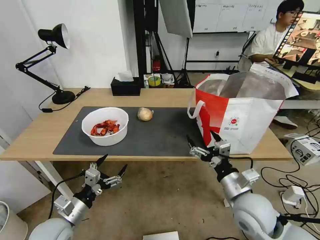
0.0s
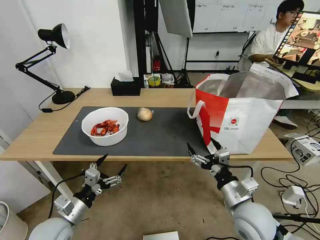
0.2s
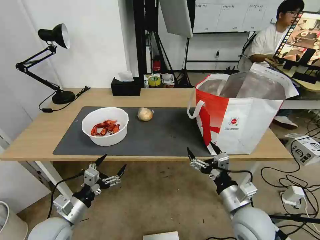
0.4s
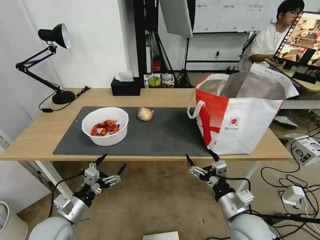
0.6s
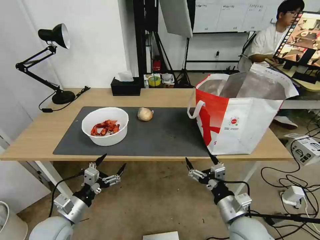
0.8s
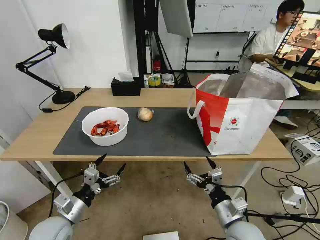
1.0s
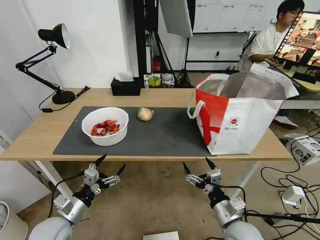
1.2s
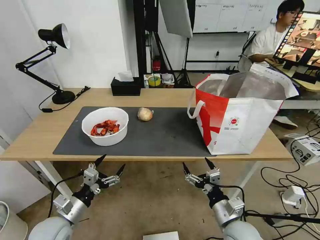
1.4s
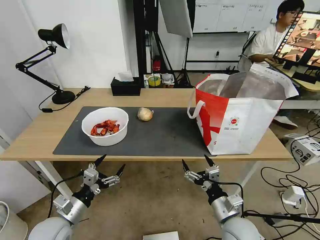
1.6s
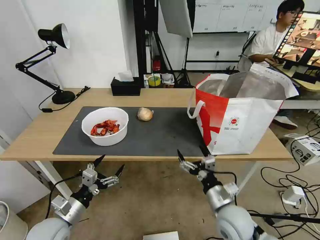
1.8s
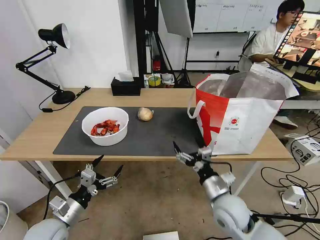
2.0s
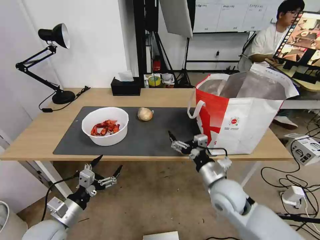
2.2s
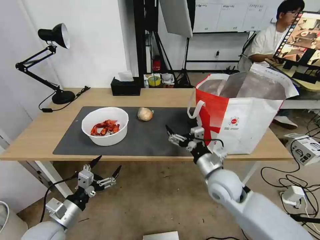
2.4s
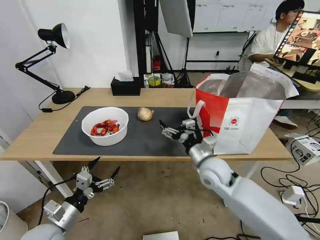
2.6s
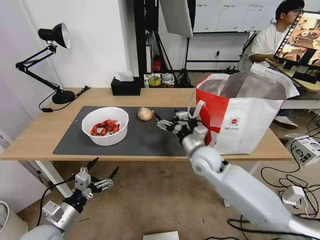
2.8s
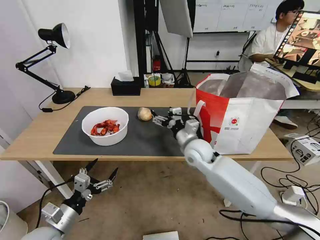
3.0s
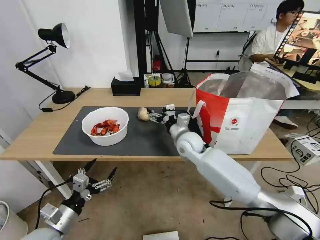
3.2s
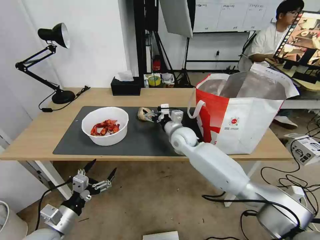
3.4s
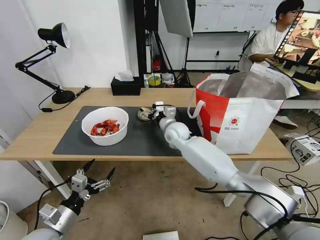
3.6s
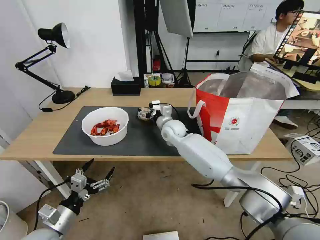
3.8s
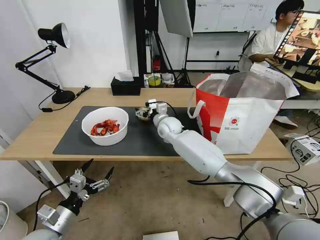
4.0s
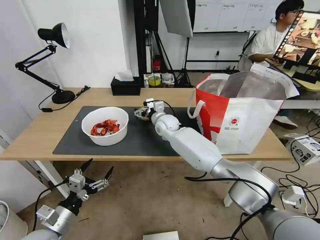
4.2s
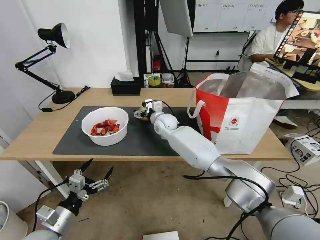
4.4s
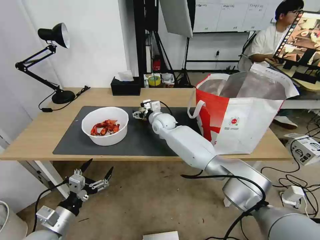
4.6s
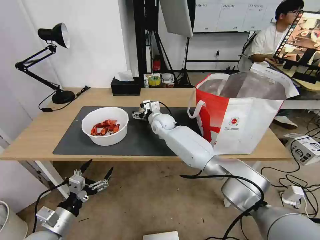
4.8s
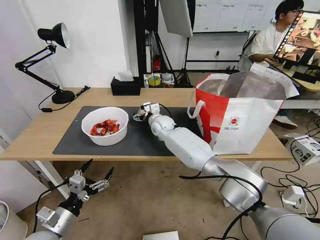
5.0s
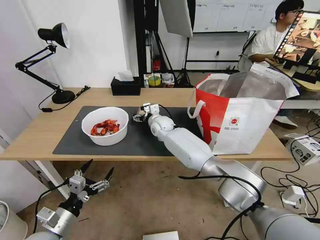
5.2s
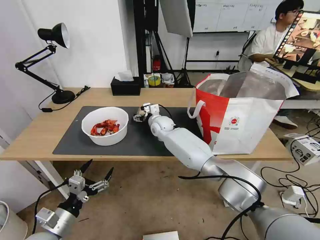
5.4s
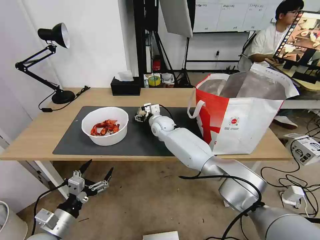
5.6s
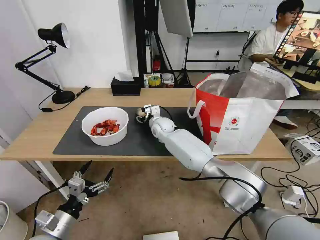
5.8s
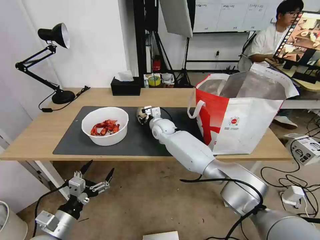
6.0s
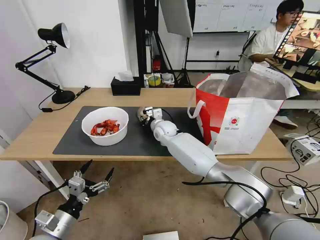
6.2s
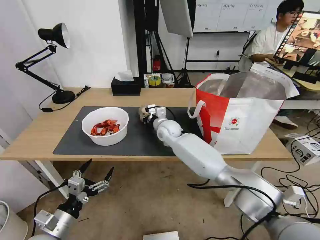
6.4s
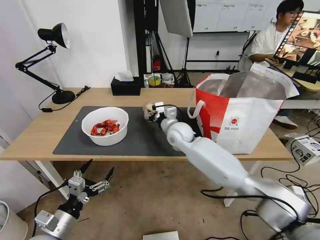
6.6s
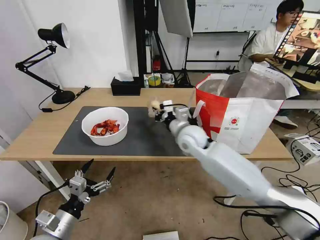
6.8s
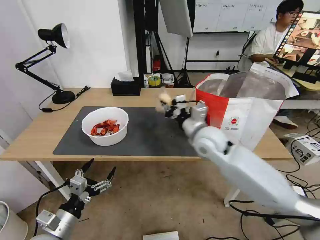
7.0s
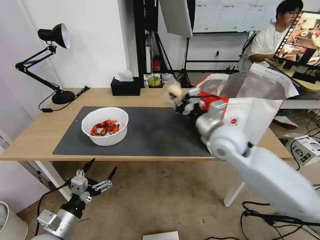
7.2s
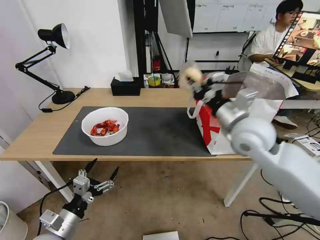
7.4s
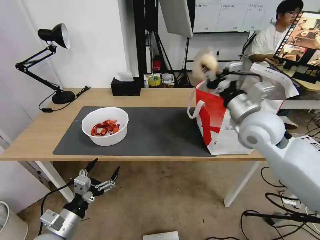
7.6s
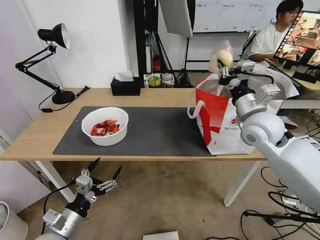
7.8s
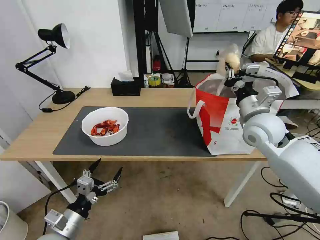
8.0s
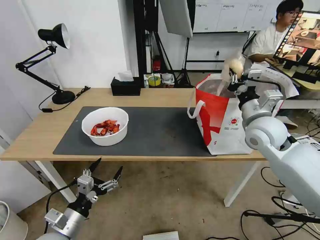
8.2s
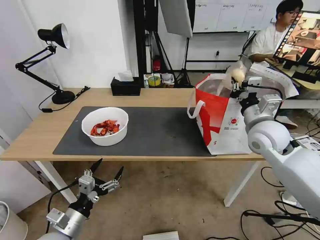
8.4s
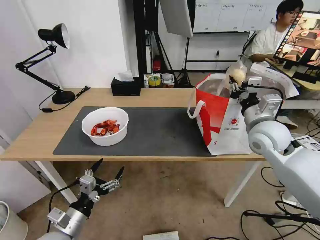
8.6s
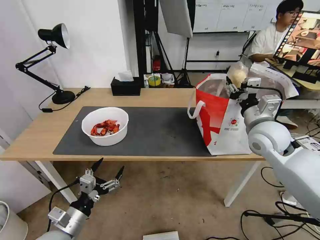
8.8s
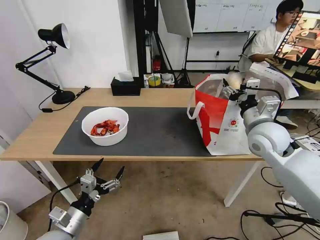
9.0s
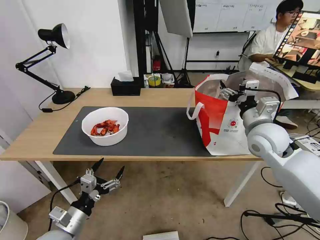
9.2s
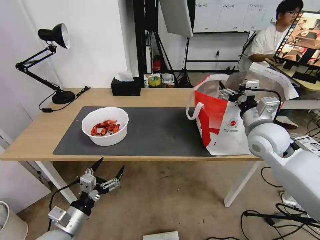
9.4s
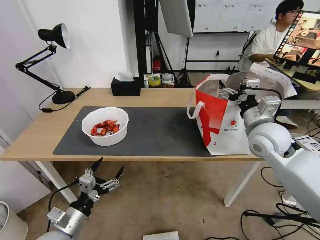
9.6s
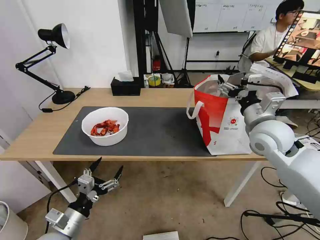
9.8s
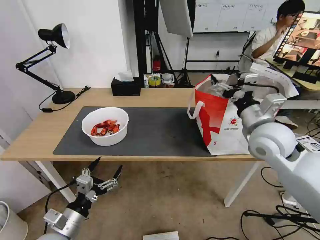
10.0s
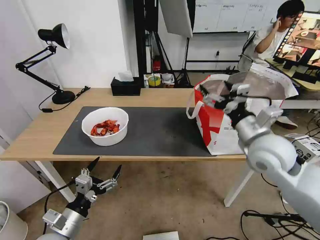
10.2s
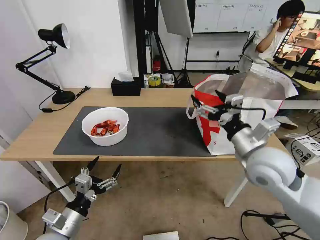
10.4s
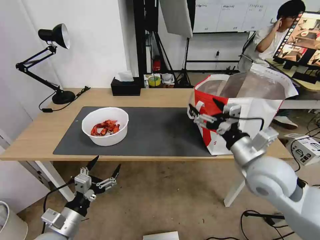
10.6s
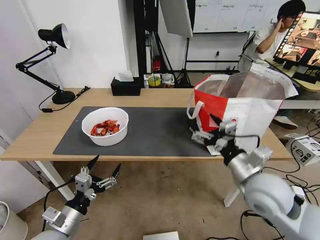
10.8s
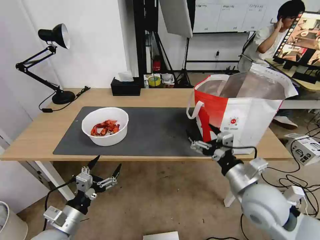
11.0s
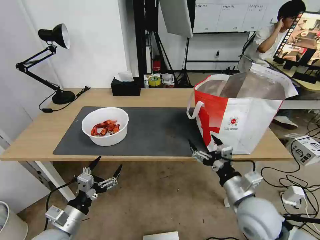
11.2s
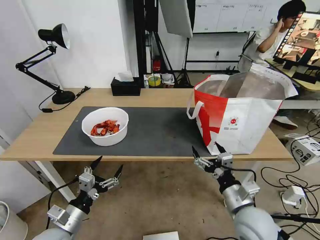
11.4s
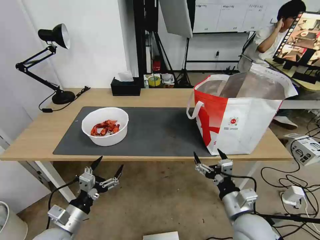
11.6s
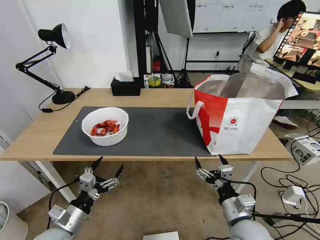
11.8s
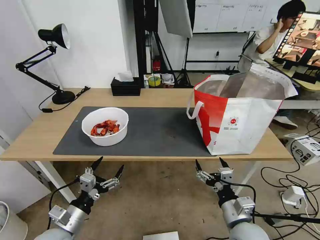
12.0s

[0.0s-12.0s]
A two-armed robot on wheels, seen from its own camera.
Task of the whole recording: Pick up the trash from the table and place it into the takeout bag.
0.0s to 1.6s: The right gripper travels downward by some 10 cm.
1.6s to 3.0s: The right gripper shifts some 25 cm forward and to the left.
3.0s to 4.4s: The right gripper shifts some 15 cm forward and to the left.
4.4s to 6.0s: The right gripper closes up.
6.0s to 7.6s: The right gripper travels to the right, upward and backward by roughly 35 cm, and closes its fingers.
7.6s to 9.0s: The right gripper moves approximately 5 cm, and opens.
9.0s to 10.4s: The right gripper is displaced backward by some 10 cm.
10.4s to 12.0s: The right gripper heads downward and backward, covering approximately 20 cm.

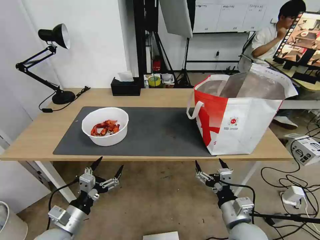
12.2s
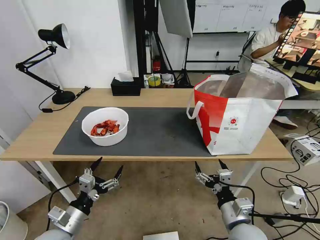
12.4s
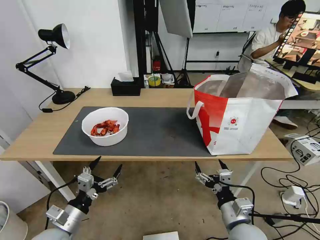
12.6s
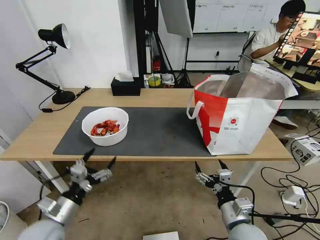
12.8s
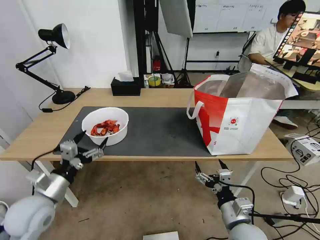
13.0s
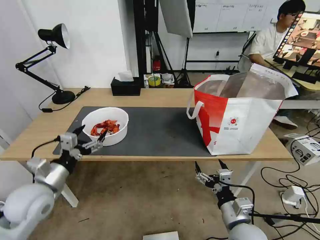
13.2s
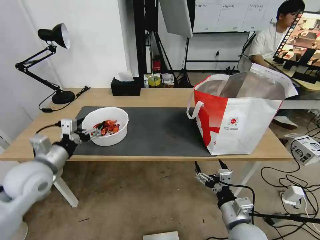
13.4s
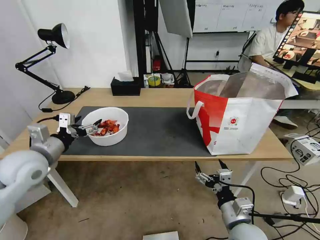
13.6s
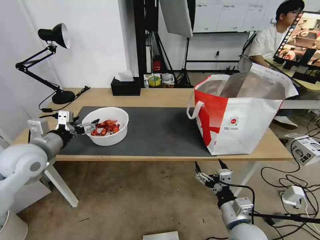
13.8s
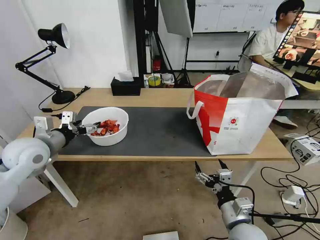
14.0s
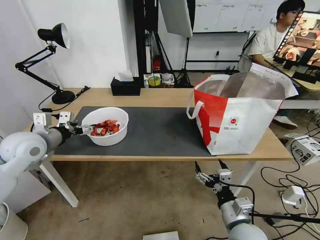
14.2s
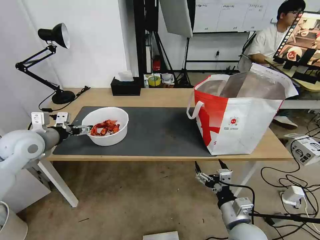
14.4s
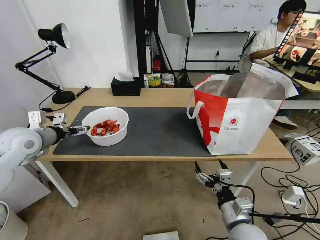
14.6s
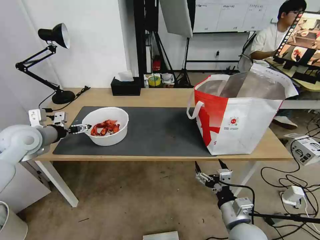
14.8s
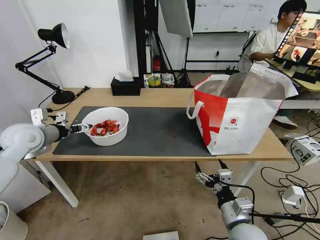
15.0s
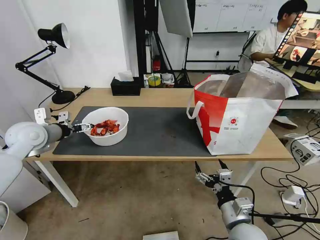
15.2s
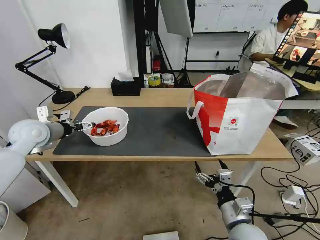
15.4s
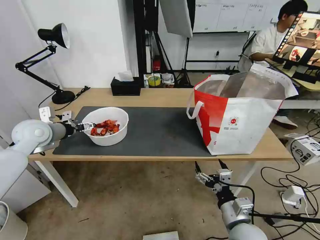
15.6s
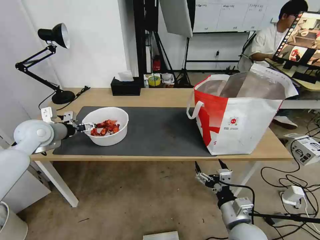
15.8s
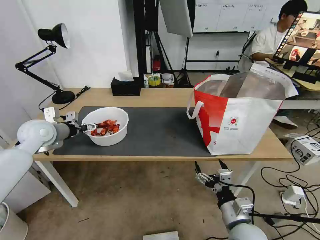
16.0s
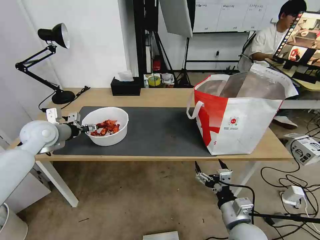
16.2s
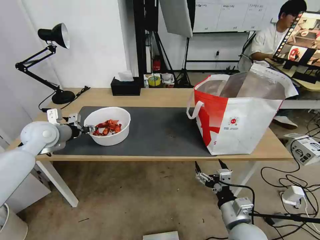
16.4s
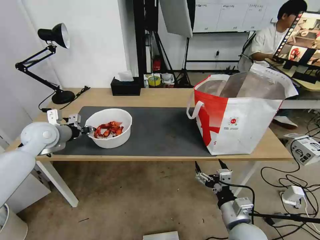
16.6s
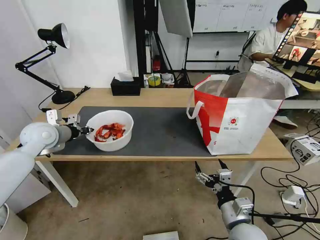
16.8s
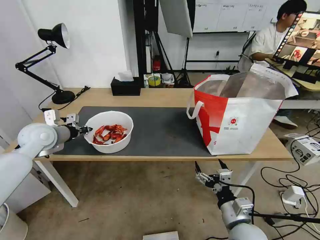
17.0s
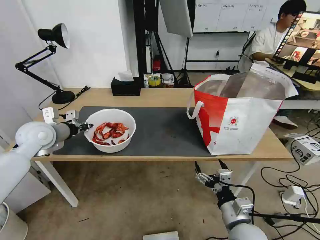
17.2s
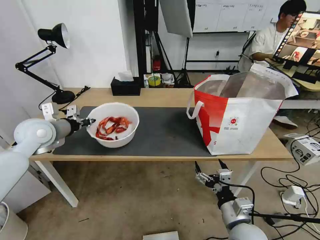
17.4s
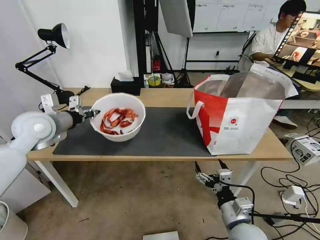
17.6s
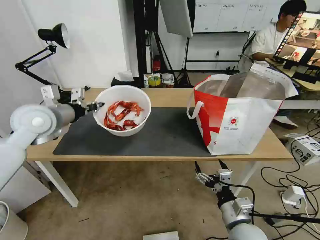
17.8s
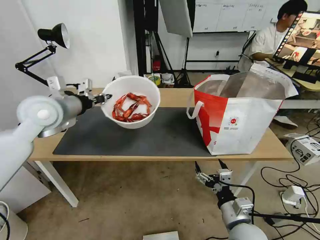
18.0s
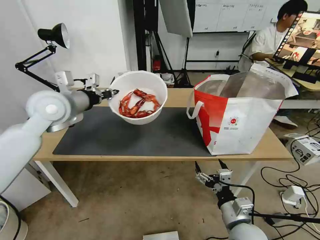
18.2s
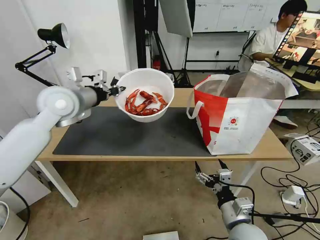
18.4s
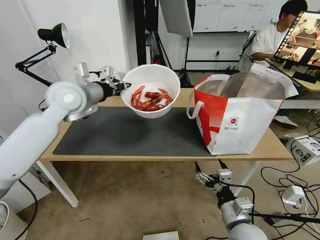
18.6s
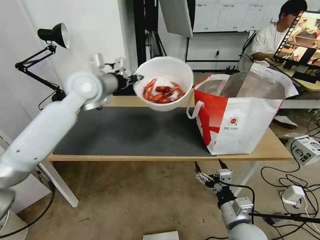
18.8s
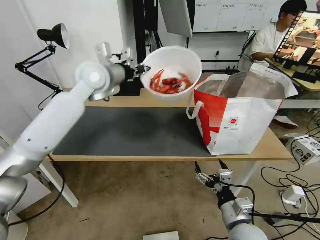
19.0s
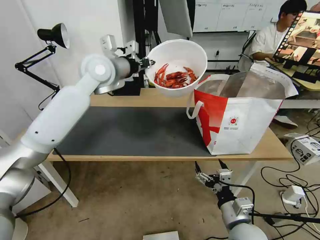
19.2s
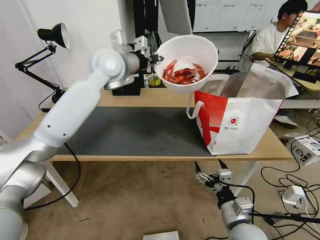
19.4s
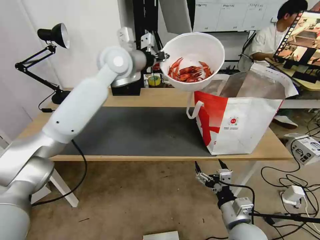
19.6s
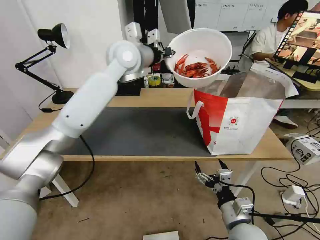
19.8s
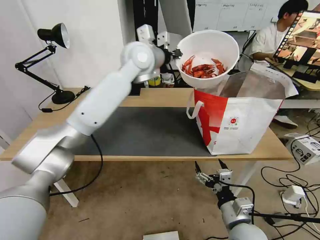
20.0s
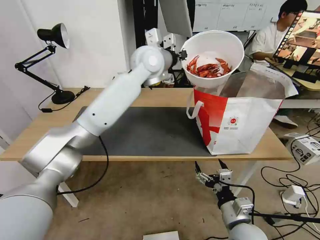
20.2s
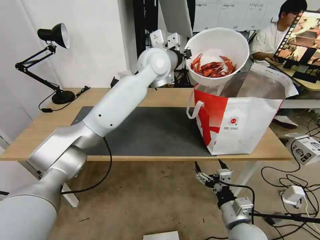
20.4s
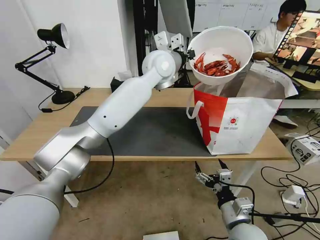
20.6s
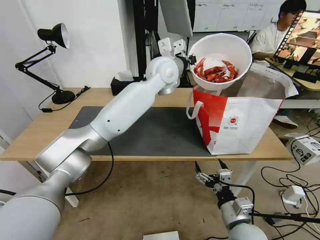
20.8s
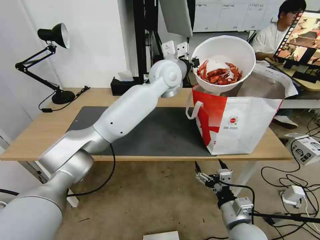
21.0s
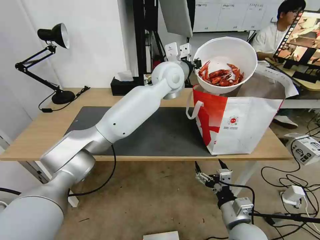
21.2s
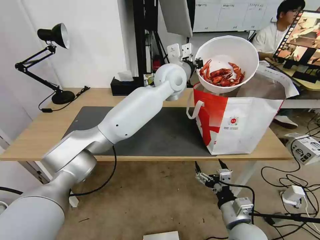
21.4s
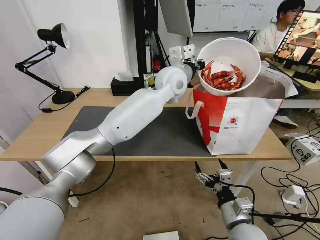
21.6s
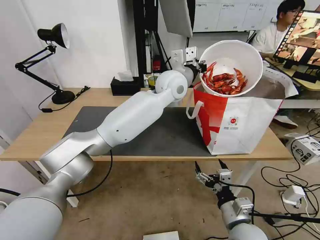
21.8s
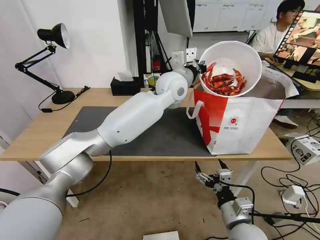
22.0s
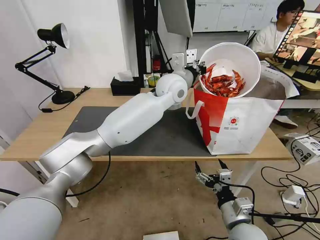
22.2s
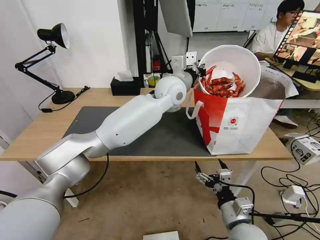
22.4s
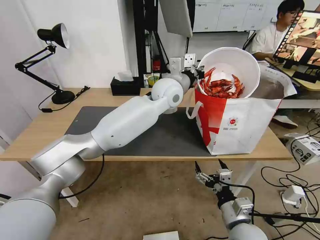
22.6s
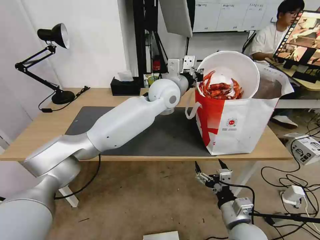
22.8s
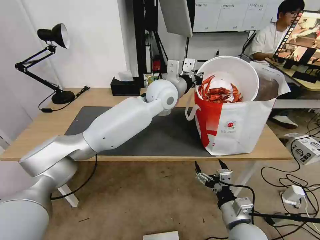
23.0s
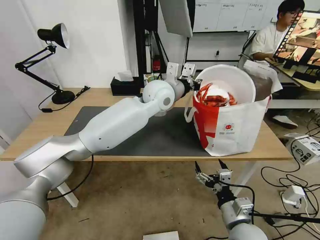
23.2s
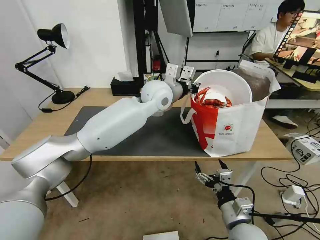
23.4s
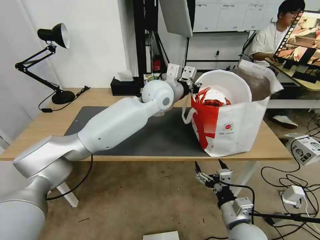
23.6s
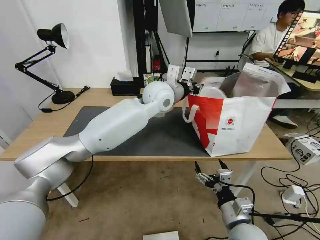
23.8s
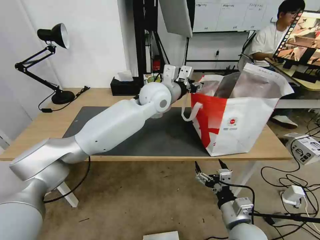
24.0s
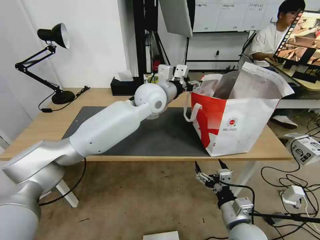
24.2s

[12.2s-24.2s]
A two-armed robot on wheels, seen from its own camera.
Task of the whole recording: Pick up the trash from the table and place it into the takeout bag.
12.2s to 13.8s: The left gripper moves upward and forward, approximately 25 cm.
13.8s to 15.2s: The left gripper goes roughly 10 cm forward.
15.2s to 16.6s: The left gripper closes.
16.6s to 18.2s: The left gripper heads upward and to the right, covering about 15 cm.
18.2s to 19.8s: The left gripper moves to the right, forward and upward, approximately 25 cm.
19.8s to 21.2s: The left gripper moves to the right and downward, roughly 15 cm.
21.2s to 22.6s: There are only small adjustments of the grippers.
22.6s to 24.2s: The left gripper travels to the left by roughly 5 cm, and opens its fingers.
